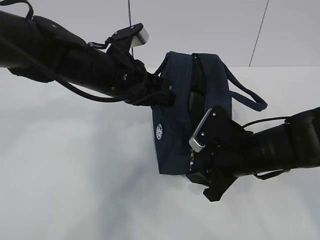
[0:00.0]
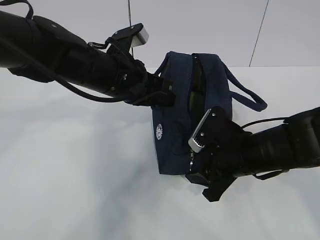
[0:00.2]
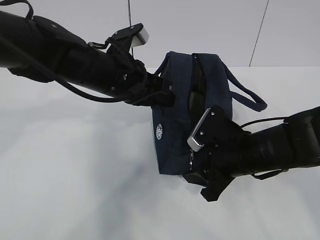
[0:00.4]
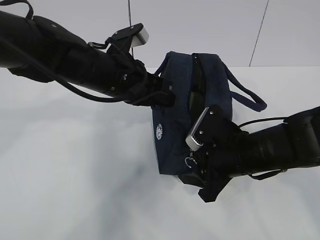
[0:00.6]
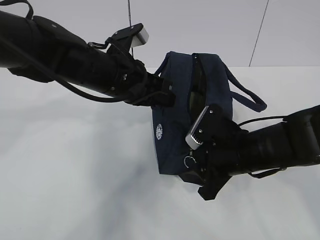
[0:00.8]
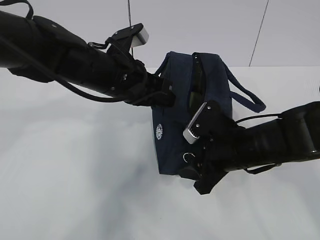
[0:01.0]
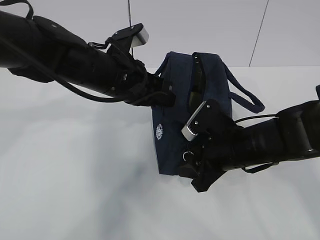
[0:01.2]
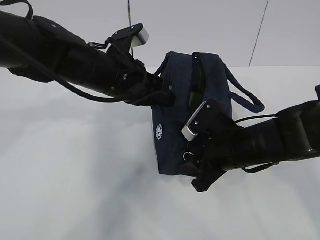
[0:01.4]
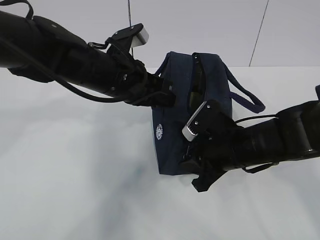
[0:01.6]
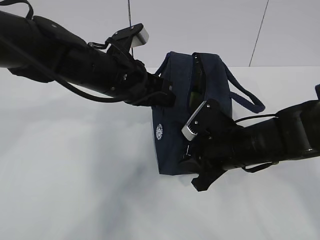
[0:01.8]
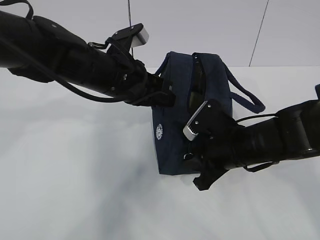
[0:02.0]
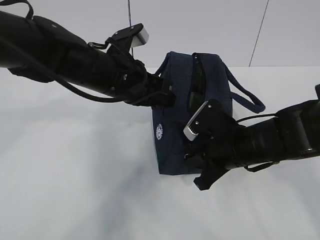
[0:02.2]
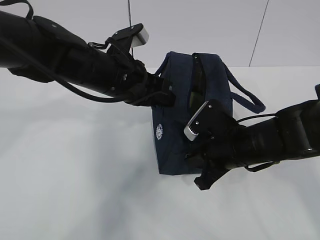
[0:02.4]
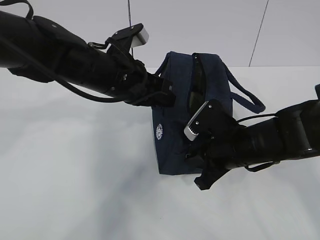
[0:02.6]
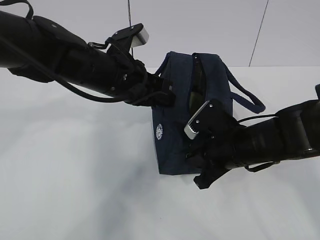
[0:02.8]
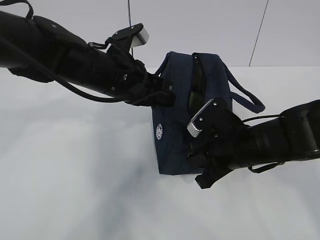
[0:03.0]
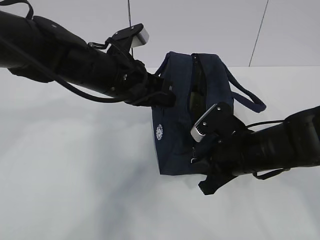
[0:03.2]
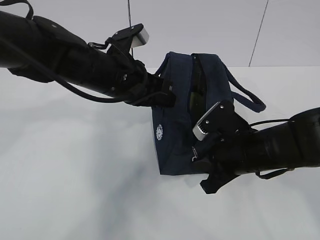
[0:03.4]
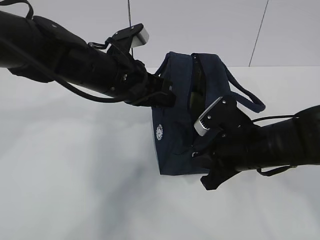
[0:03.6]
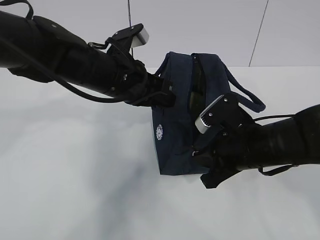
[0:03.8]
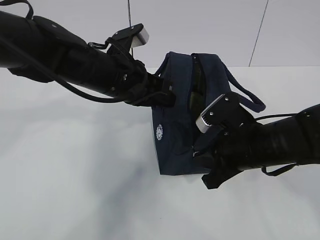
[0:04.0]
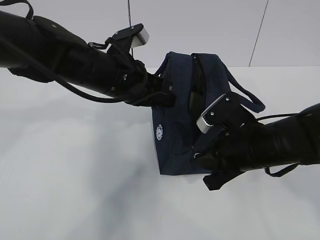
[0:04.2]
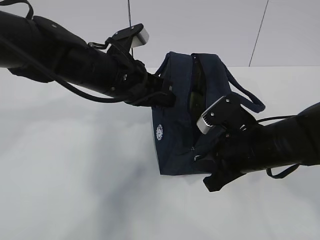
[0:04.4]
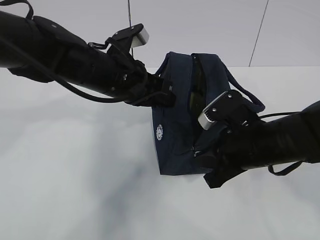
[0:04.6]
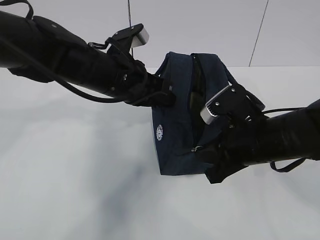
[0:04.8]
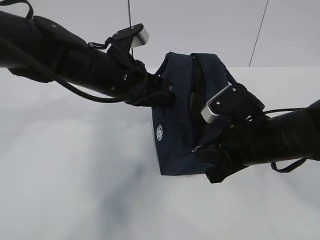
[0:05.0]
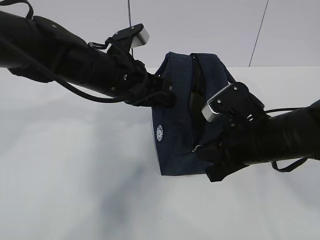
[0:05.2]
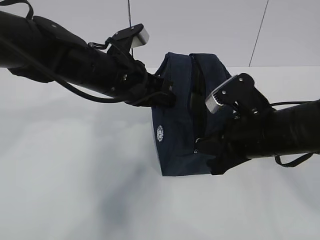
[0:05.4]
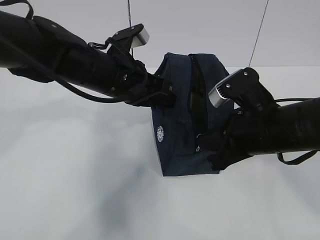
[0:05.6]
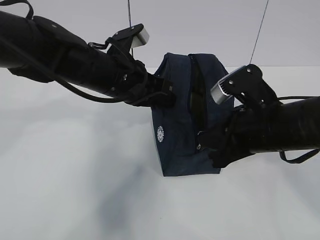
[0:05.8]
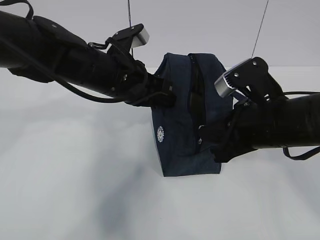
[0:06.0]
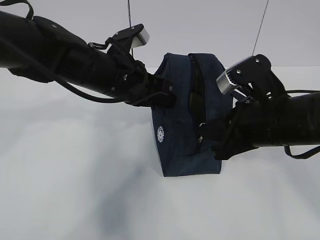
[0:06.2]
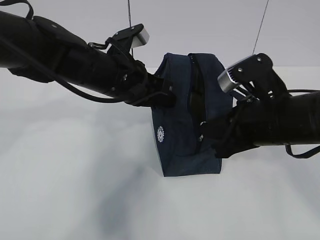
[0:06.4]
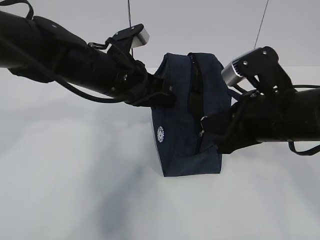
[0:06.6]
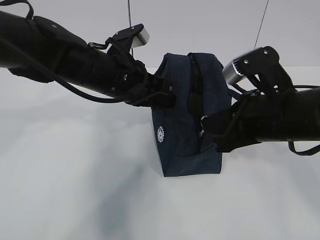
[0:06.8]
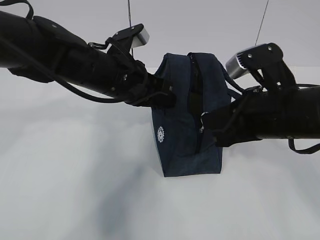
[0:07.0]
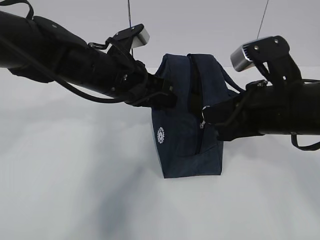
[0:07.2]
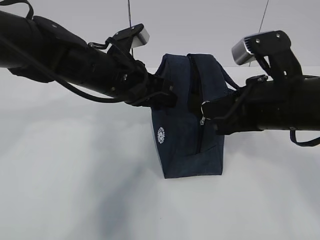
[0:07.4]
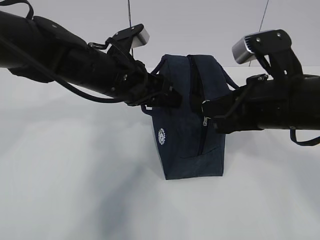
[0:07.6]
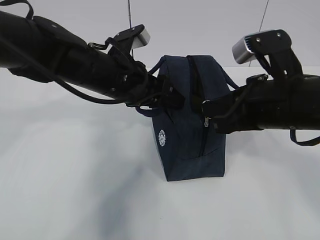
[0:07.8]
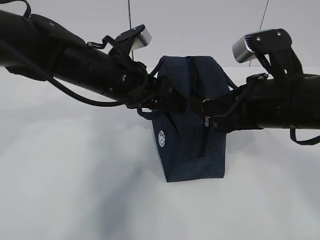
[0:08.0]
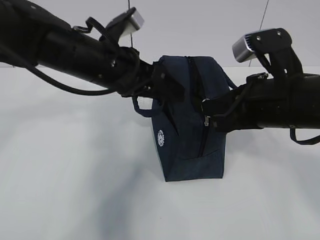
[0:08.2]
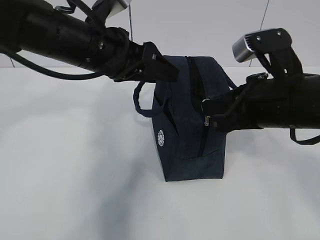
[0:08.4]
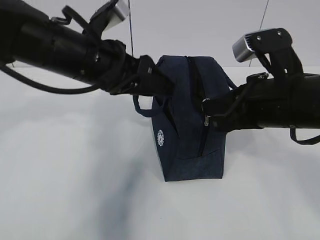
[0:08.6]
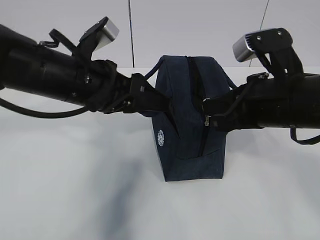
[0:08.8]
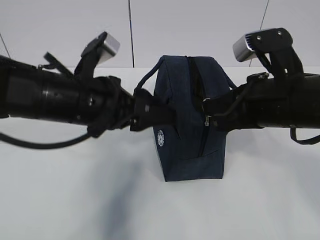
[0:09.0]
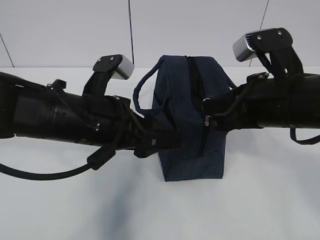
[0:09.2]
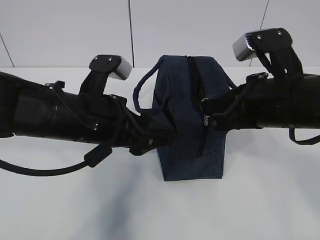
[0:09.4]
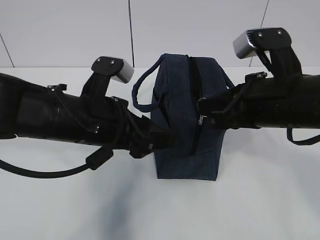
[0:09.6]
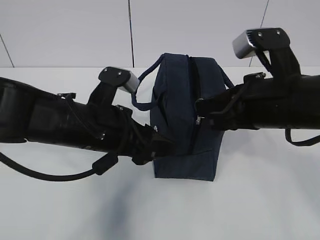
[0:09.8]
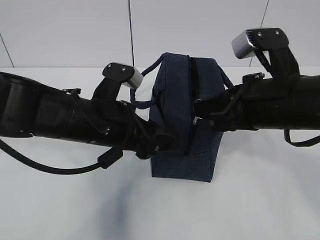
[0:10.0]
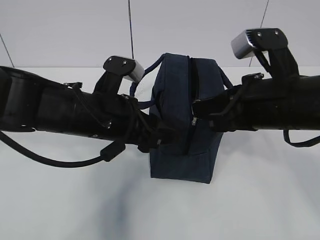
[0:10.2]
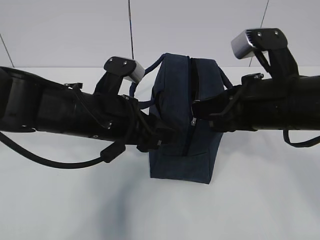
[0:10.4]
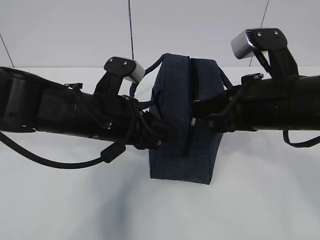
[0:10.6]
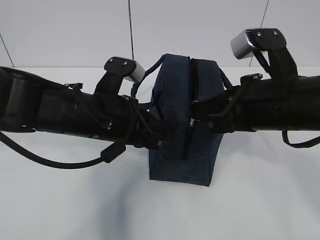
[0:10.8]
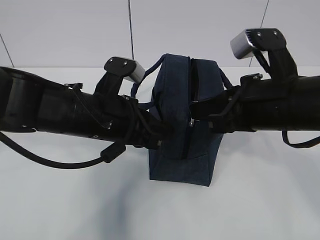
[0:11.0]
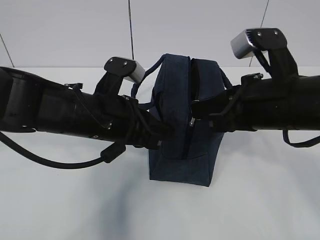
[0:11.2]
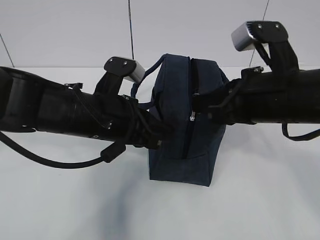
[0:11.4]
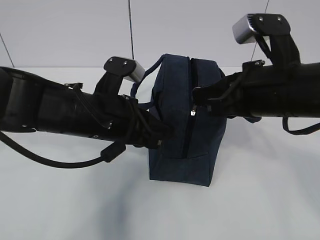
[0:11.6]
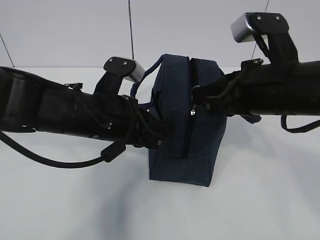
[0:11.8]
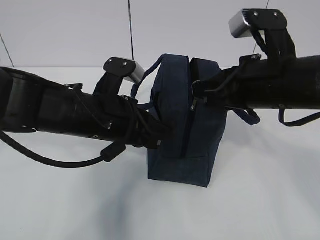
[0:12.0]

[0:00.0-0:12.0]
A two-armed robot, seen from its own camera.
Step, 0:00.0 to 0:10.6: Pull the zipper with your right hand.
0:00.0 to 0:04.4: There are only small adjustments of the grippers.
0:04.4 to 0:06.0: The right gripper is displaced upward by approximately 5 cm.
0:06.0 to 0:07.6: The left gripper opens its fingers.
0:07.6 to 0:09.0: The left gripper heads backward, covering some 5 cm.
0:09.0 to 0:10.4: The grippers move only a little.
0:10.4 to 0:12.0: The left gripper closes up.

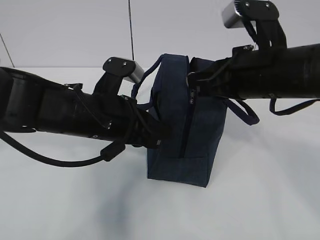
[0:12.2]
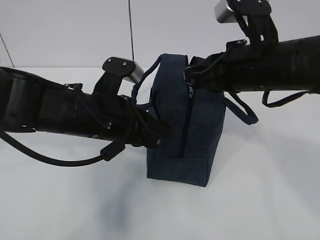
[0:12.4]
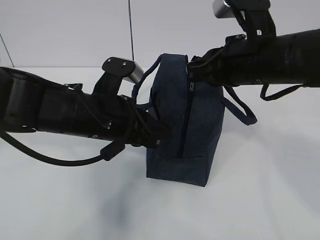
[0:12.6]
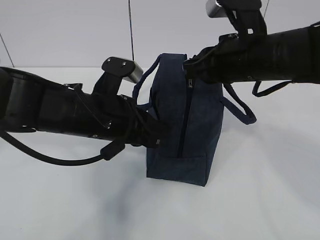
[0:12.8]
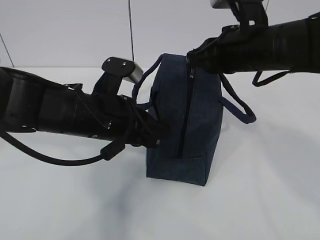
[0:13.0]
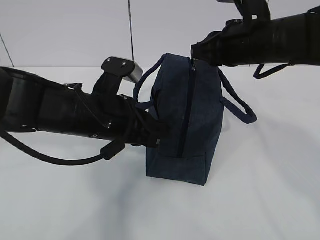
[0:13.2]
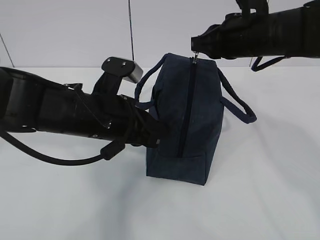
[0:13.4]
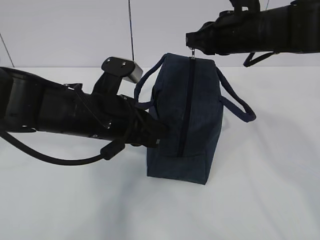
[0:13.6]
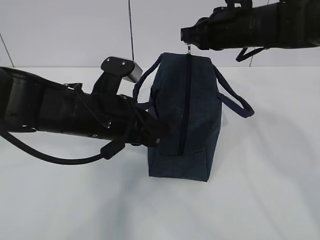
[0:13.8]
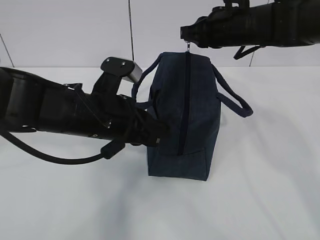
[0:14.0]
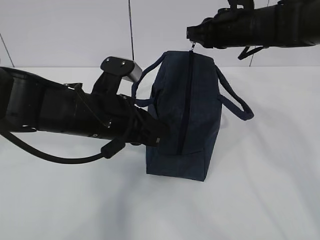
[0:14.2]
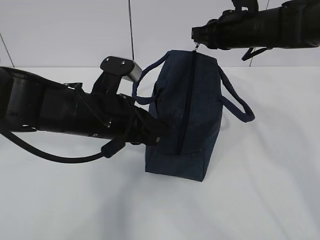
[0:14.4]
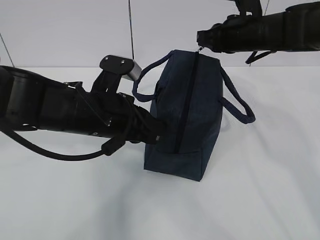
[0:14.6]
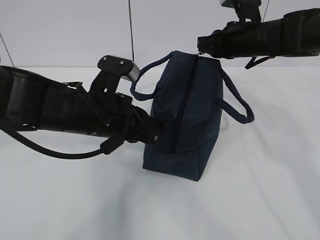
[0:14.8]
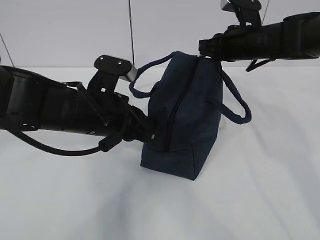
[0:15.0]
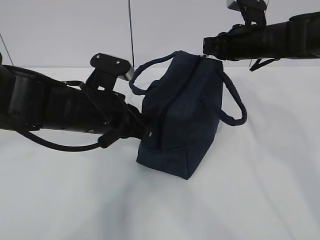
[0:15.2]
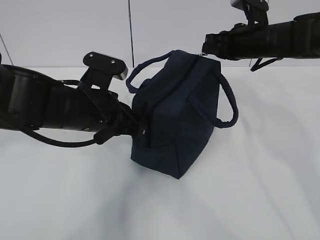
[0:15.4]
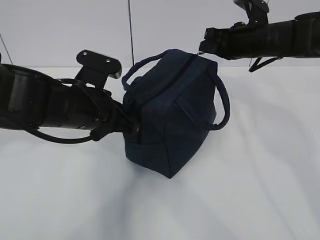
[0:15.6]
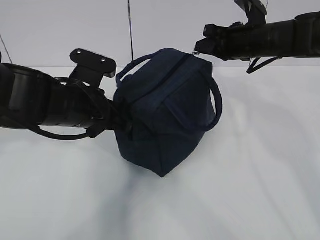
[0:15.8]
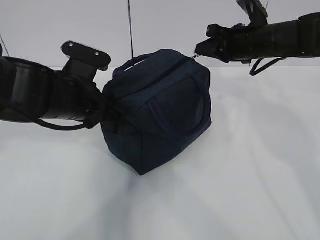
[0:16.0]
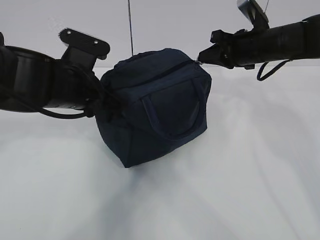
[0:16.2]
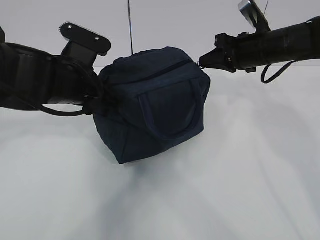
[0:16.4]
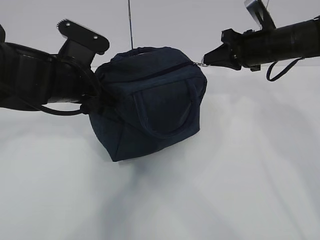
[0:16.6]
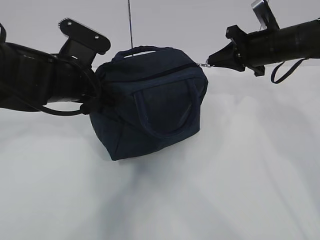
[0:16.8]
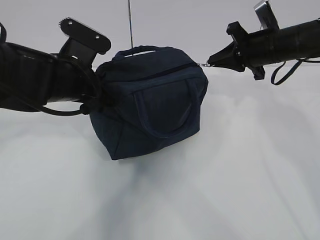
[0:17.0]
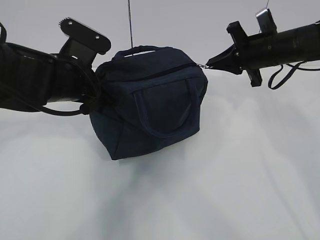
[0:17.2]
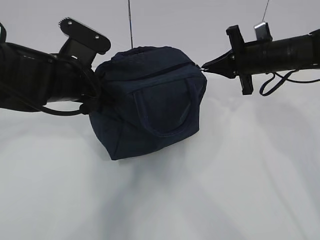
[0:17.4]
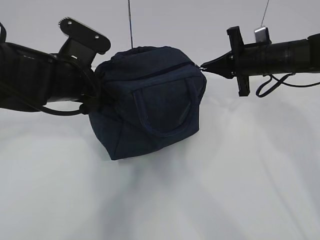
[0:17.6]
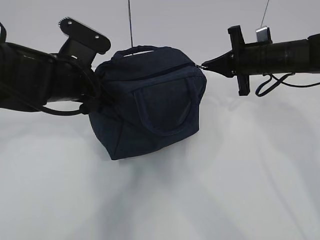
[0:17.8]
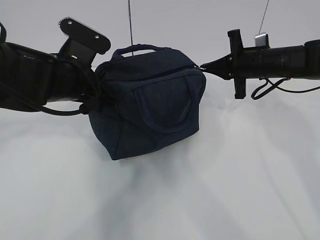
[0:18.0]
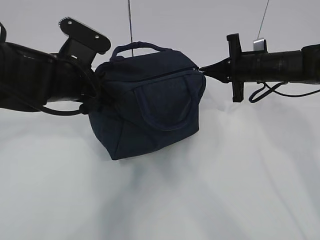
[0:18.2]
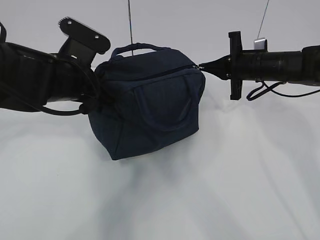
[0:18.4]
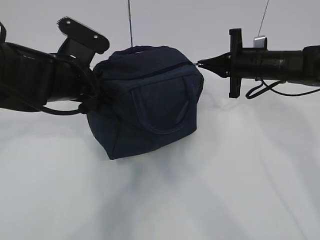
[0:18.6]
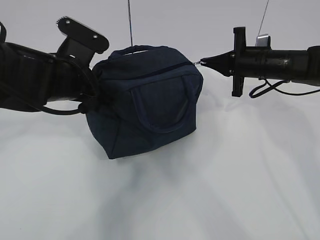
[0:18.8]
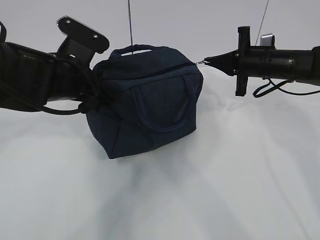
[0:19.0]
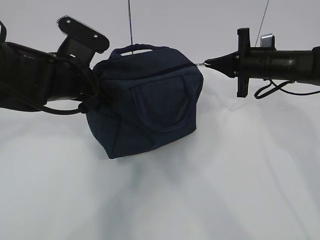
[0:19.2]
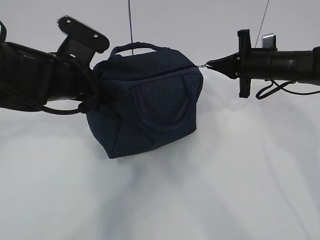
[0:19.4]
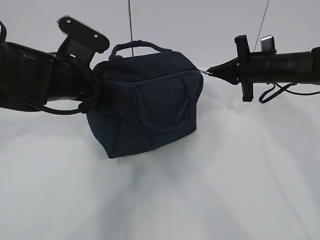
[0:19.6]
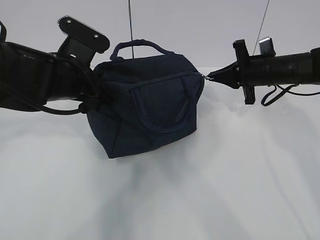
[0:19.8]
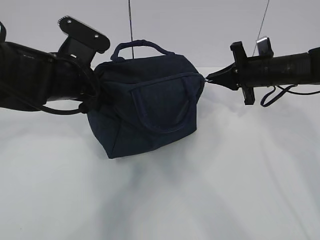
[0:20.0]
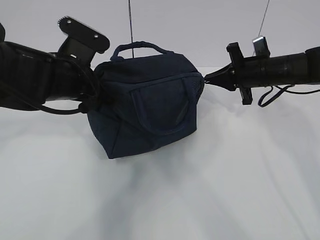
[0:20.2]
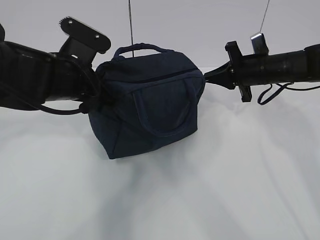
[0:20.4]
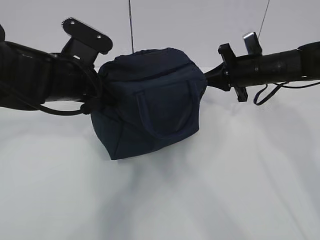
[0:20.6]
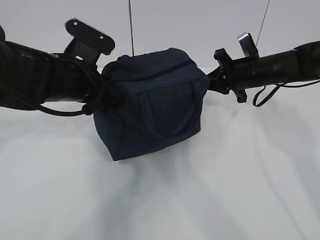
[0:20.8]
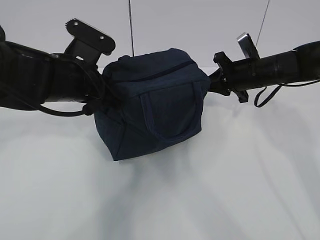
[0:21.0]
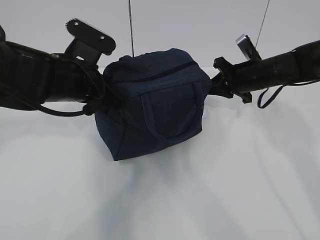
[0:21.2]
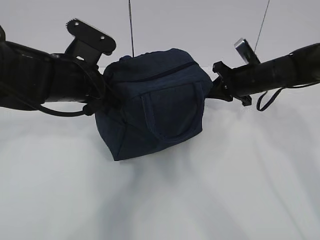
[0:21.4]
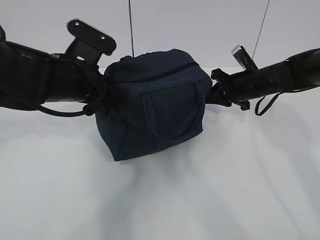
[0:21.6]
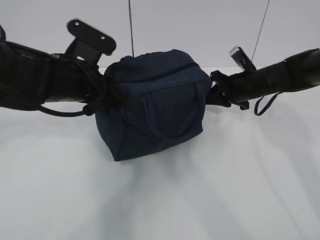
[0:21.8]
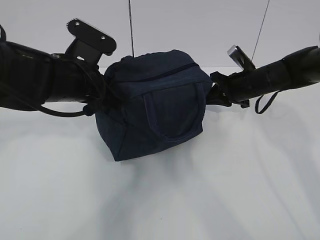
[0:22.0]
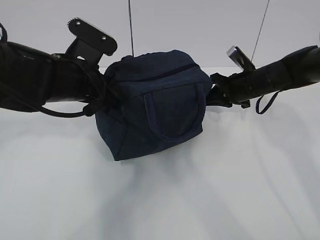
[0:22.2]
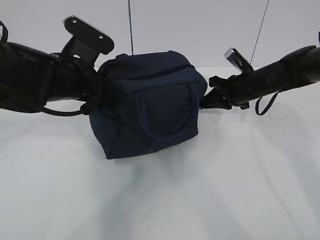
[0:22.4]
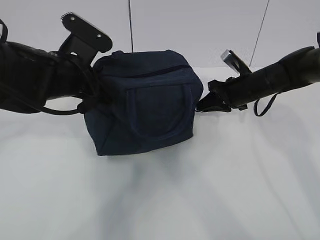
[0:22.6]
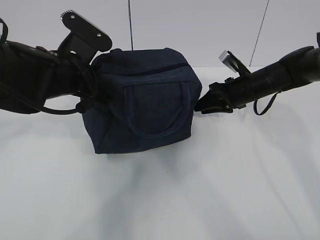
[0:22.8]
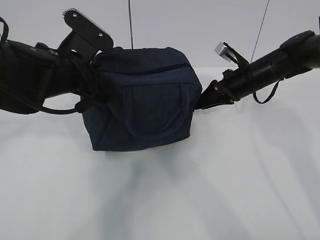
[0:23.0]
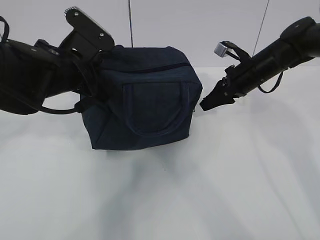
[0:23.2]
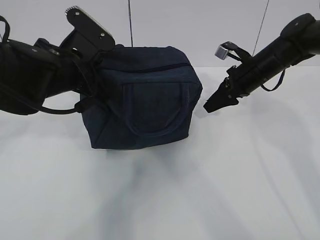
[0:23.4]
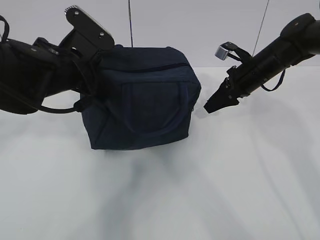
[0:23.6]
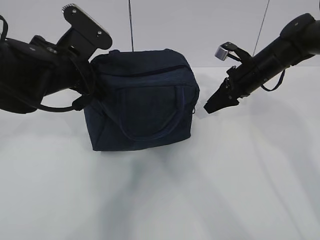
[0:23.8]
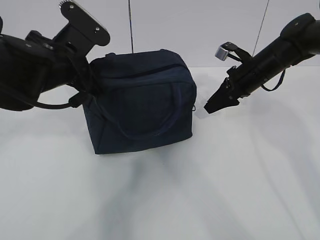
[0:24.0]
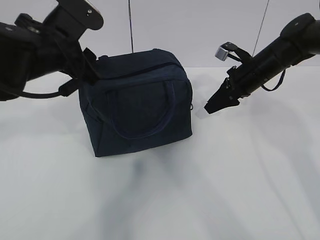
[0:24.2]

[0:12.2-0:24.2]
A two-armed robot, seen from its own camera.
0:12.2 to 0:13.8: The right gripper moves forward, some 15 cm.
0:13.8 to 0:15.2: The right gripper goes roughly 5 cm to the right.
0:15.2 to 0:16.6: The left gripper moves about 5 cm.
0:16.6 to 0:18.2: The right gripper goes approximately 5 cm downward.
0:18.2 to 0:19.8: There are only small adjustments of the grippers.
0:21.2 to 0:22.6: The grippers move only a little.
0:22.6 to 0:24.2: The right gripper opens its fingers; the left gripper opens its fingers.
